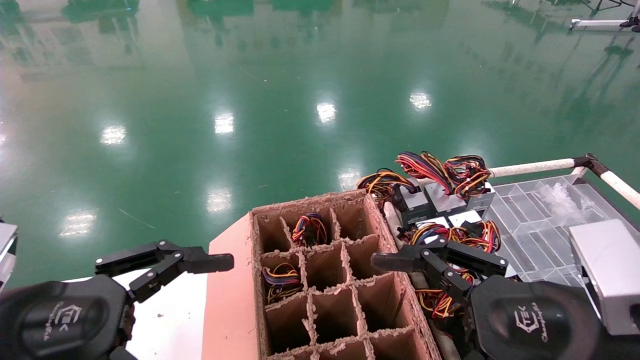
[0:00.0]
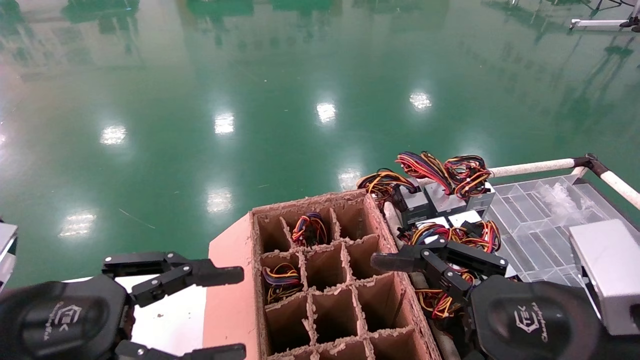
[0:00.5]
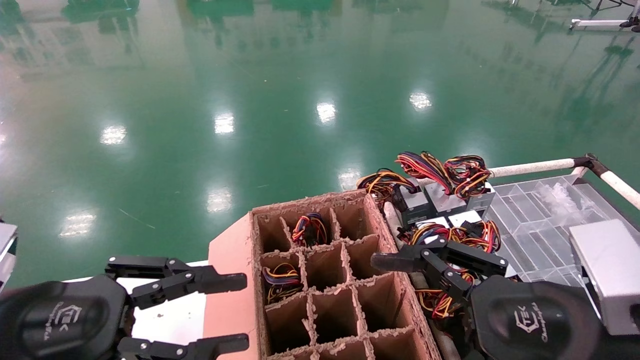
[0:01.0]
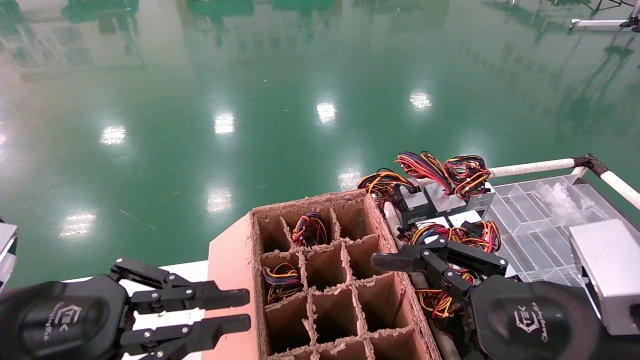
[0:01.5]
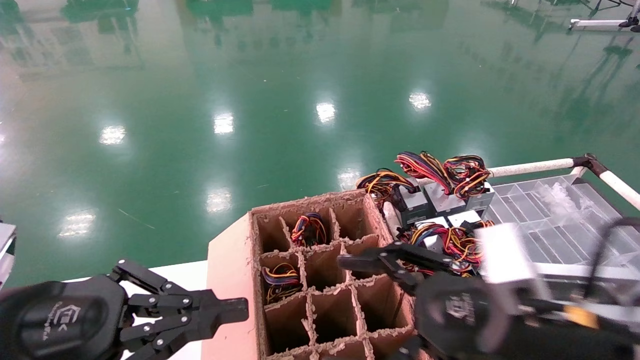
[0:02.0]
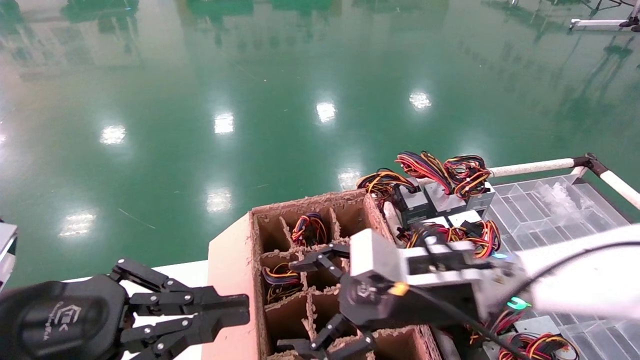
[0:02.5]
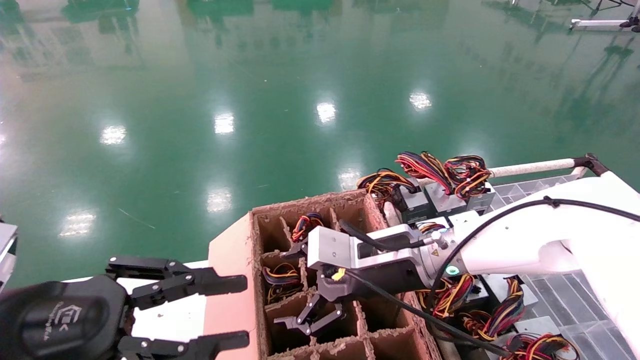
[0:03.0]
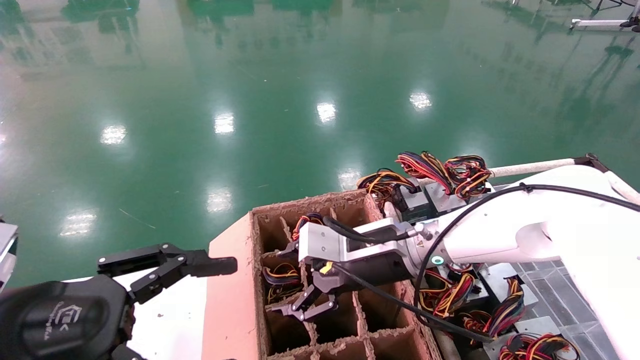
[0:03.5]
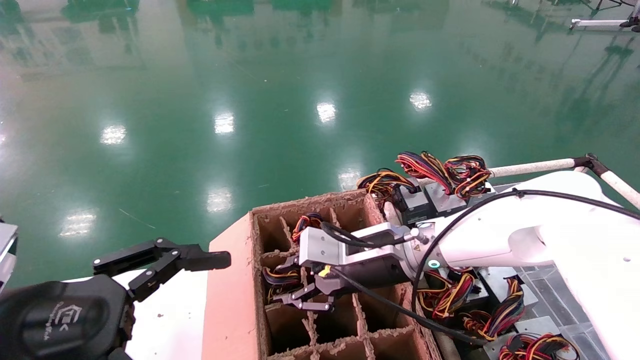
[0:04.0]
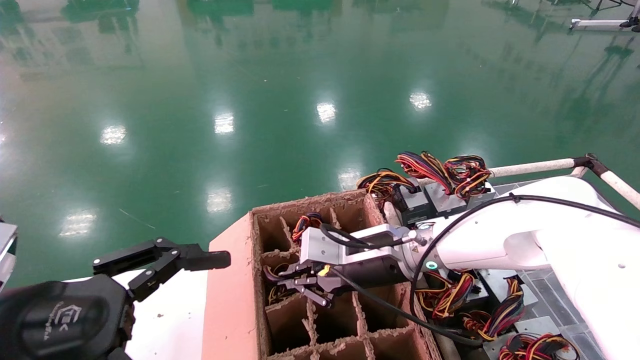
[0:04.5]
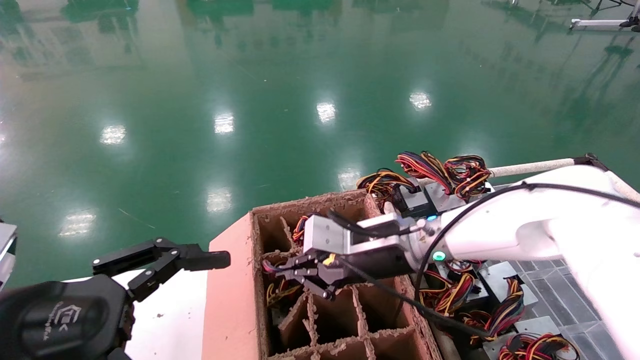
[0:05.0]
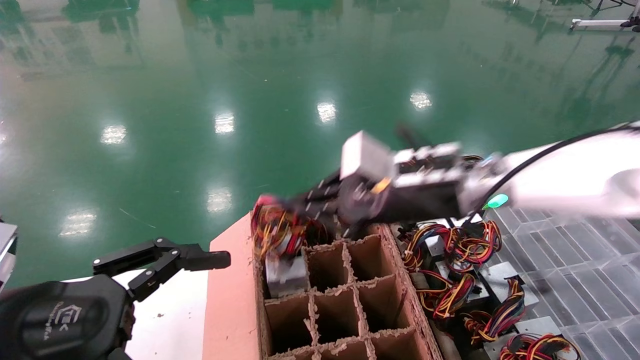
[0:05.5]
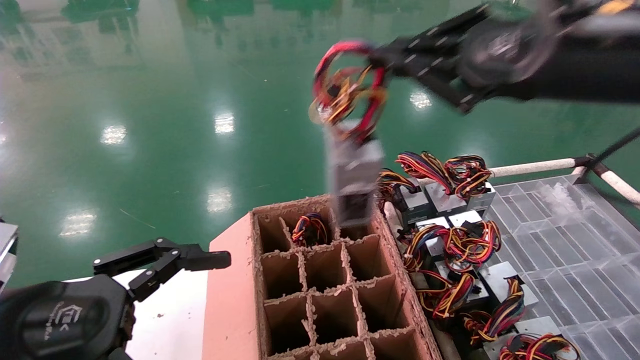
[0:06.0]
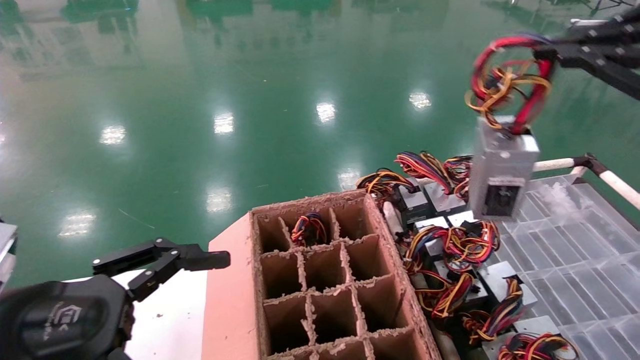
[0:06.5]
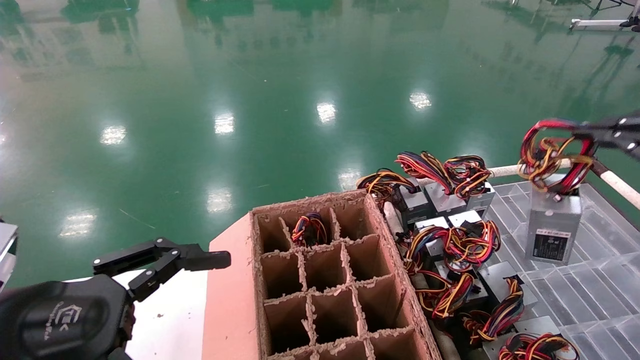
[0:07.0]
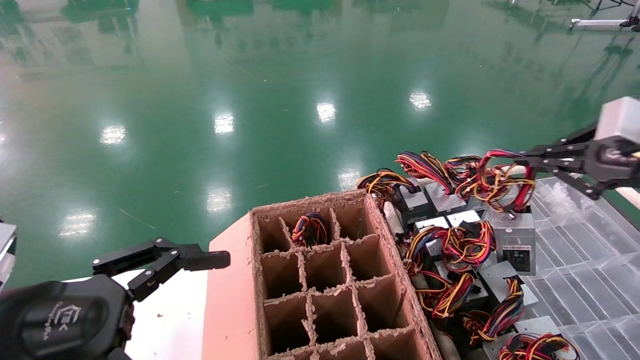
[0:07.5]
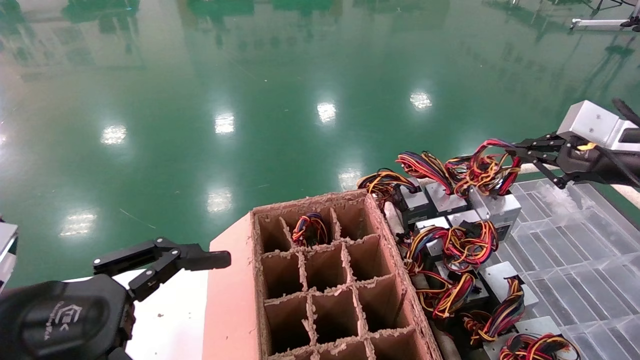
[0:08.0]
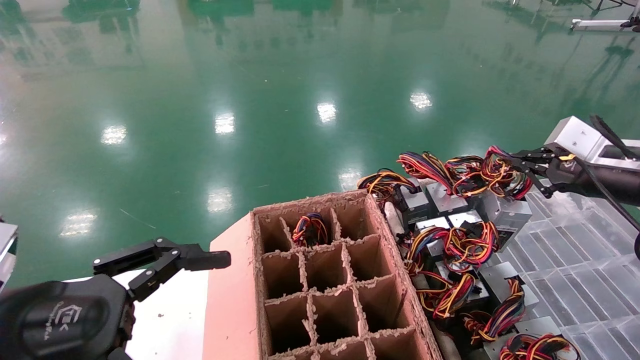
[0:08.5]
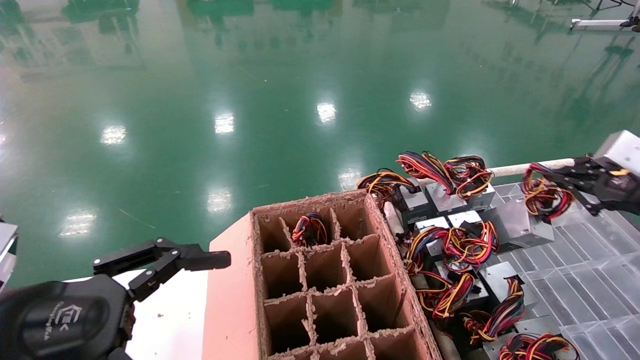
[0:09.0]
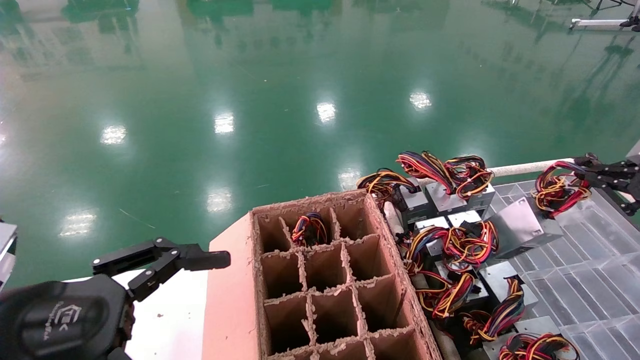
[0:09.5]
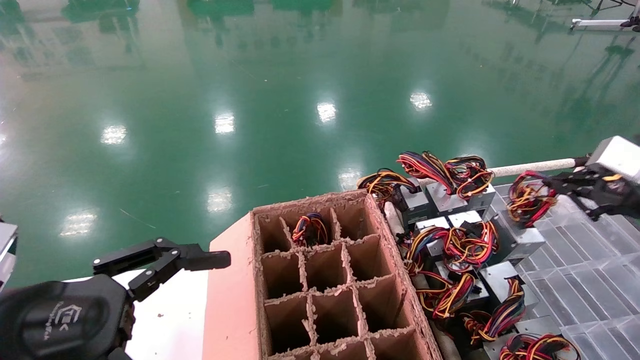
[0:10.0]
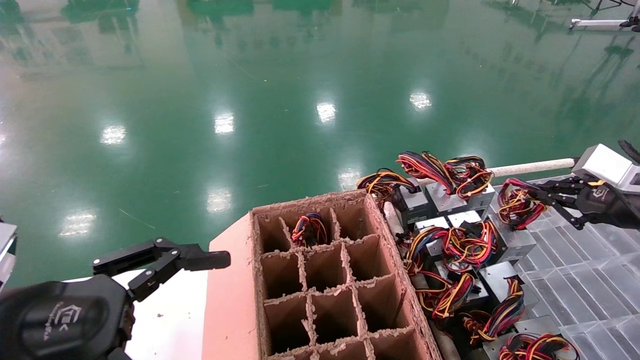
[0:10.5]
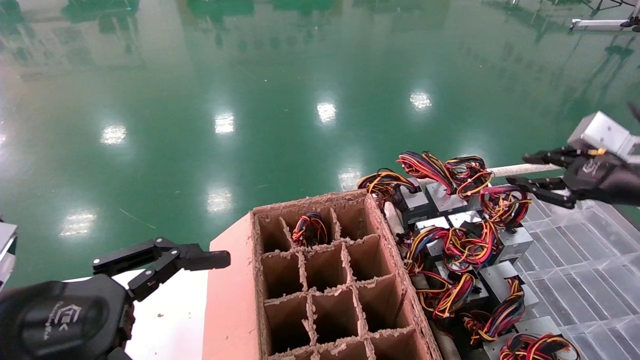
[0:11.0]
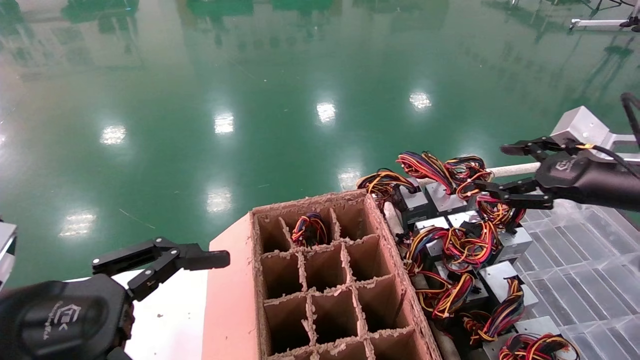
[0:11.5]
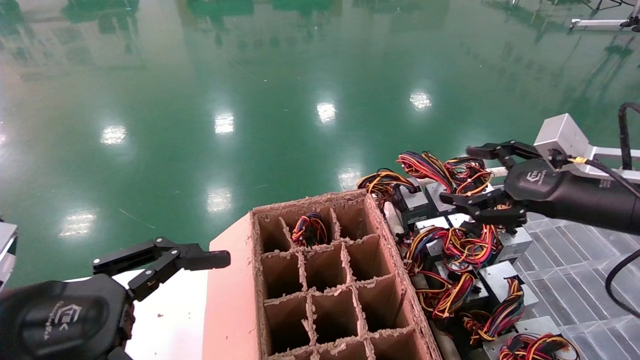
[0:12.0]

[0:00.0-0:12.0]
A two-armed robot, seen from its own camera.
Step, 0:02.0 to 0:04.5: Grab and lift the power supply from the large box.
Step, 0:05.0 to 0:10.5: Place the power supply on the operating table.
0:00.0 to 0:02.0: The left gripper closes its fingers, while the right gripper goes some 5 cm forward.
0:02.0 to 0:04.0: The right gripper goes about 20 cm forward and to the left, and closes its fingers. The left gripper opens its fingers.
0:04.0 to 0:06.0: The right gripper shifts approximately 30 cm upward, to the right and backward, and closes its fingers.
0:06.0 to 0:08.0: The right gripper shifts some 20 cm to the right, downward and forward.
0:08.0 to 0:10.0: The right gripper shifts approximately 5 cm downward and to the right.
0:10.0 to 0:12.0: The right gripper heads to the left, covering some 10 cm, and opens.
